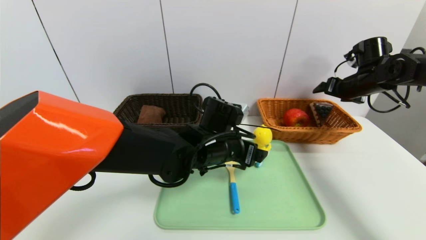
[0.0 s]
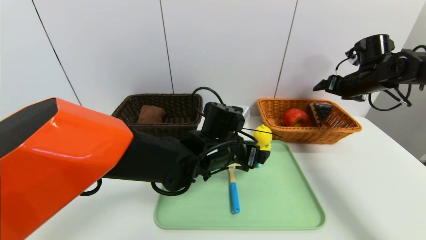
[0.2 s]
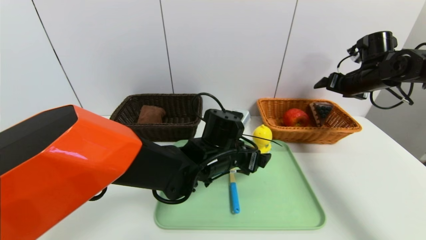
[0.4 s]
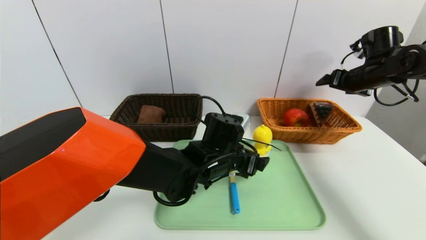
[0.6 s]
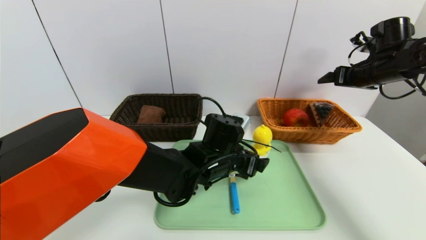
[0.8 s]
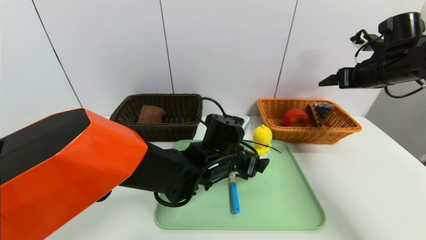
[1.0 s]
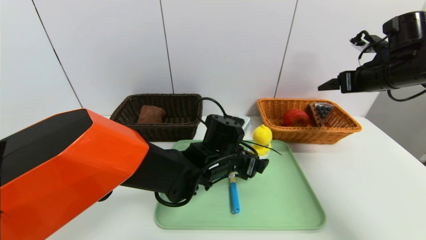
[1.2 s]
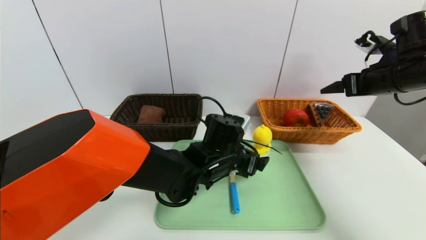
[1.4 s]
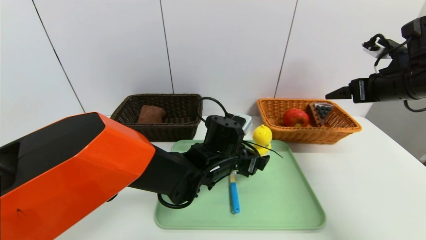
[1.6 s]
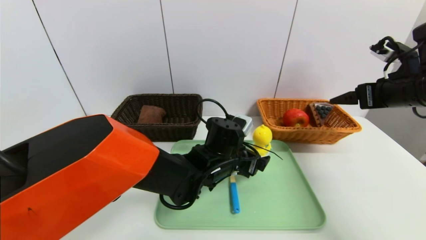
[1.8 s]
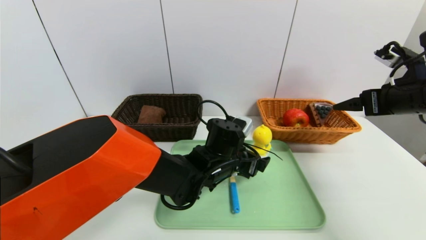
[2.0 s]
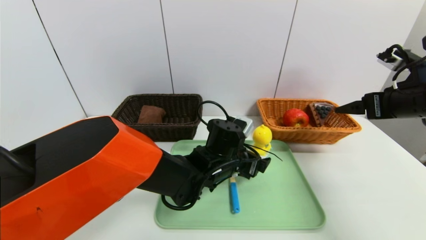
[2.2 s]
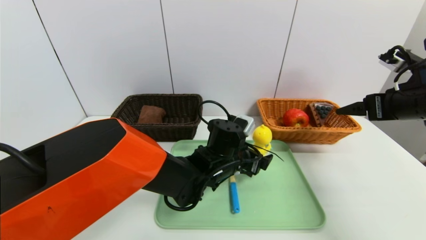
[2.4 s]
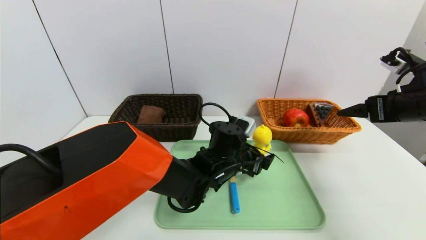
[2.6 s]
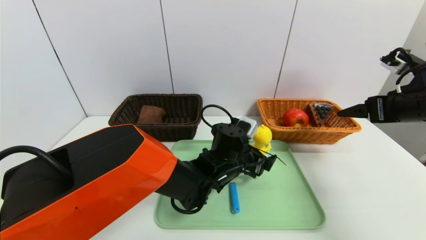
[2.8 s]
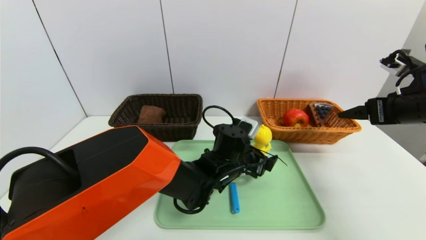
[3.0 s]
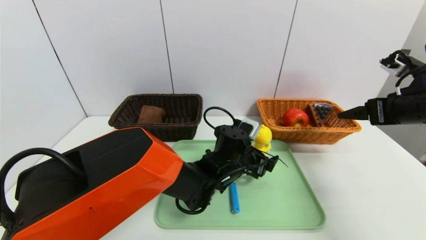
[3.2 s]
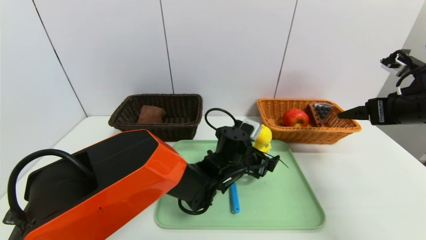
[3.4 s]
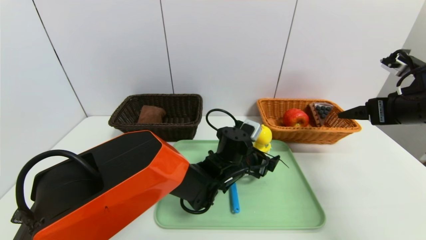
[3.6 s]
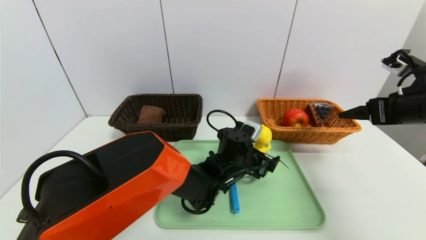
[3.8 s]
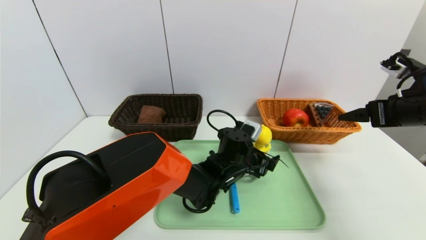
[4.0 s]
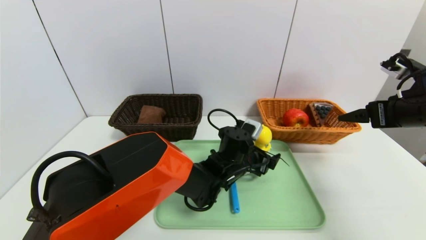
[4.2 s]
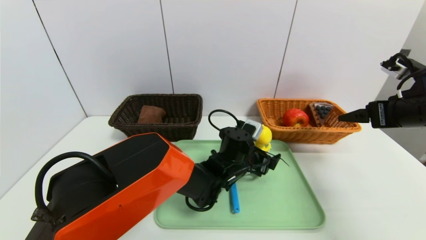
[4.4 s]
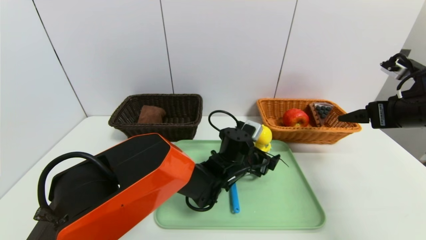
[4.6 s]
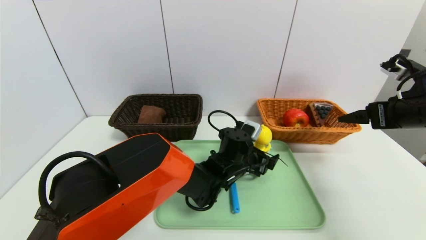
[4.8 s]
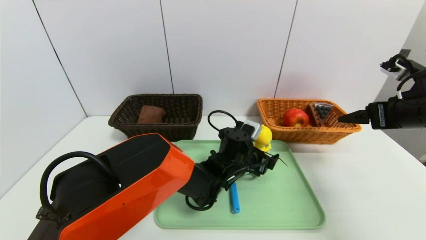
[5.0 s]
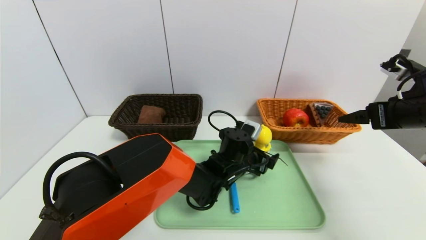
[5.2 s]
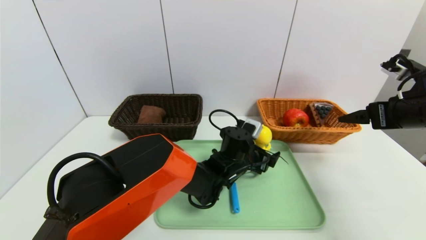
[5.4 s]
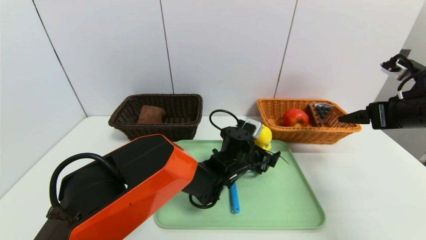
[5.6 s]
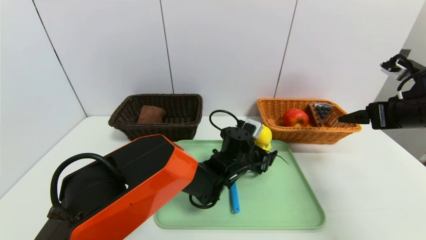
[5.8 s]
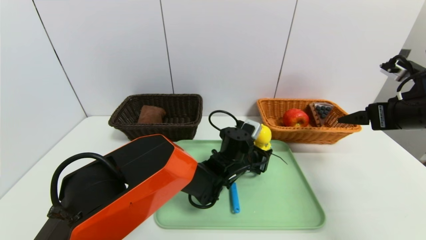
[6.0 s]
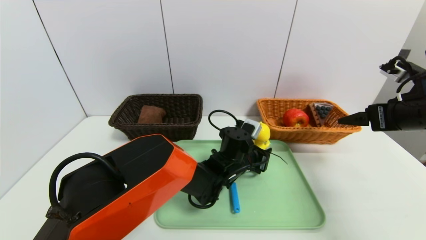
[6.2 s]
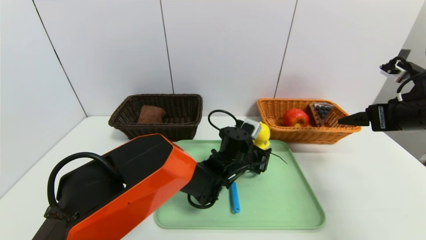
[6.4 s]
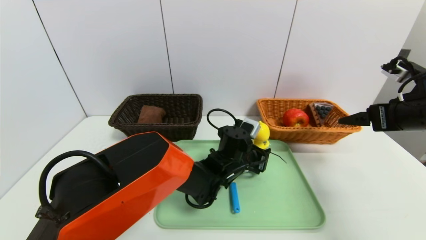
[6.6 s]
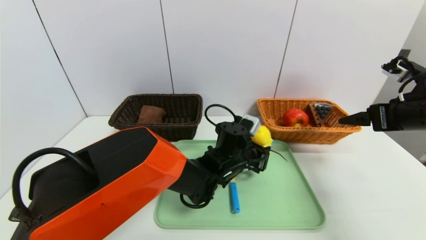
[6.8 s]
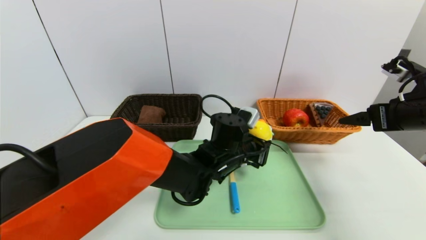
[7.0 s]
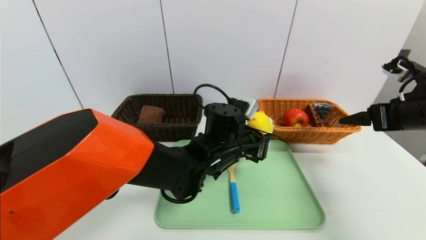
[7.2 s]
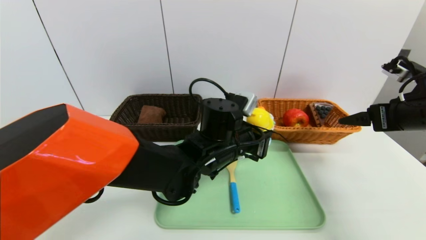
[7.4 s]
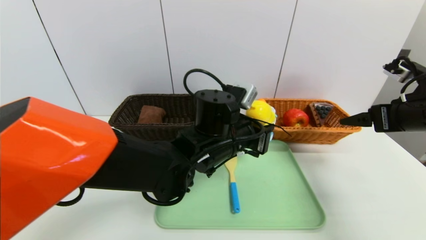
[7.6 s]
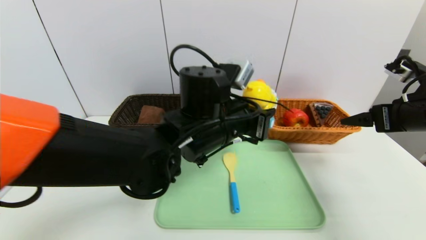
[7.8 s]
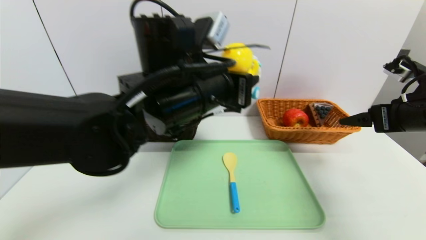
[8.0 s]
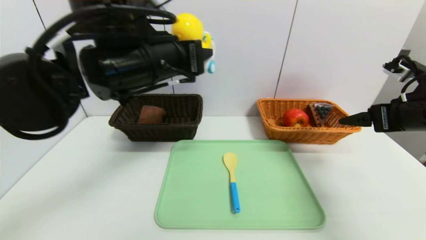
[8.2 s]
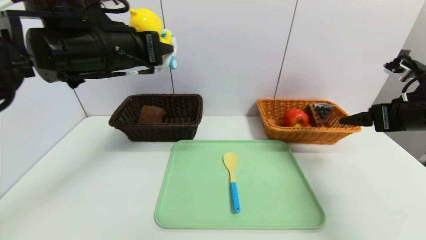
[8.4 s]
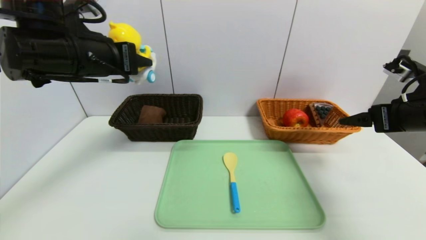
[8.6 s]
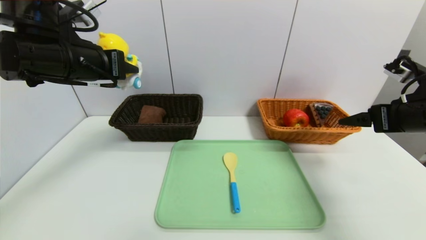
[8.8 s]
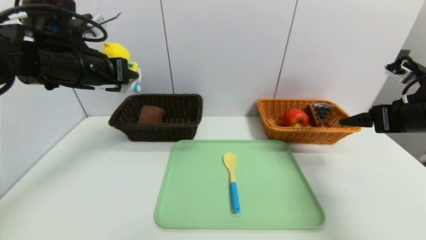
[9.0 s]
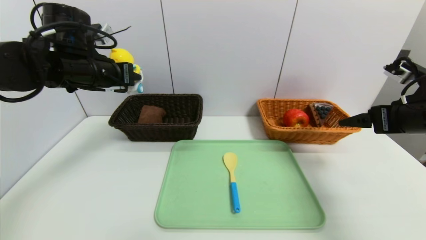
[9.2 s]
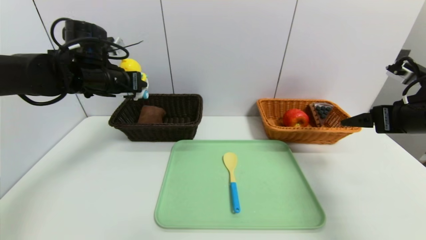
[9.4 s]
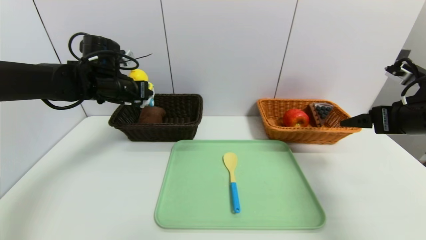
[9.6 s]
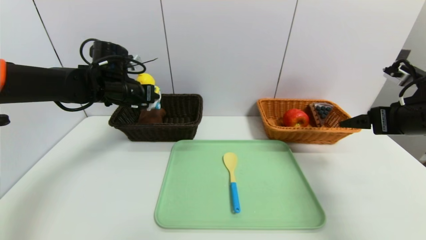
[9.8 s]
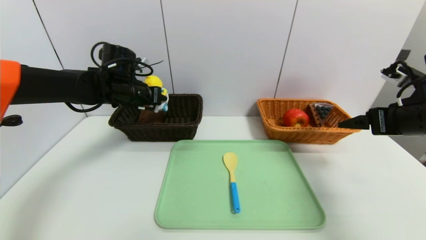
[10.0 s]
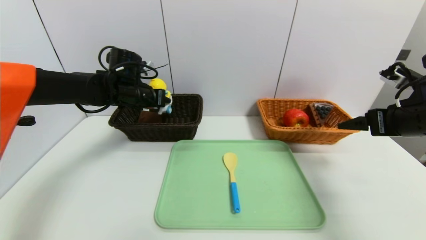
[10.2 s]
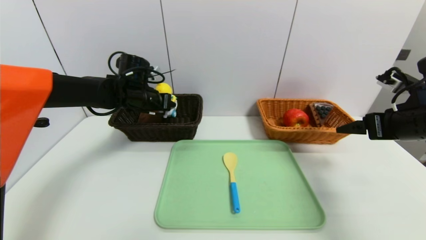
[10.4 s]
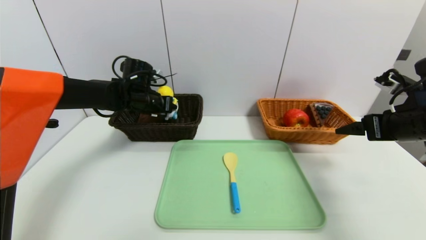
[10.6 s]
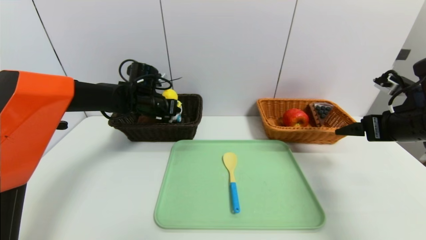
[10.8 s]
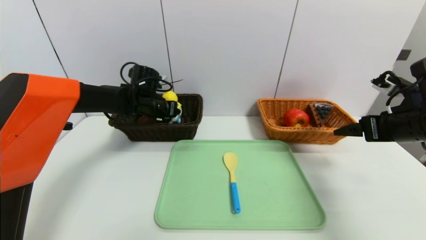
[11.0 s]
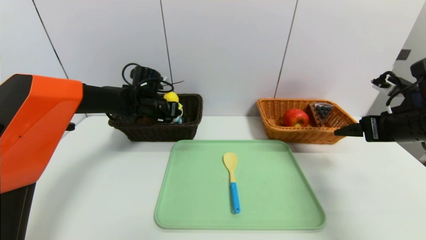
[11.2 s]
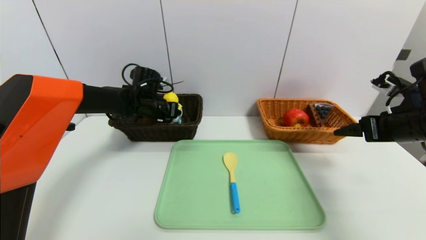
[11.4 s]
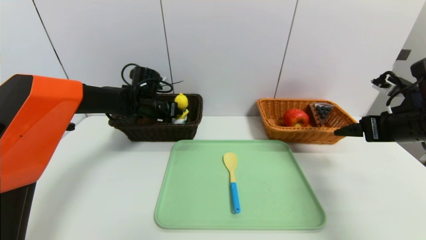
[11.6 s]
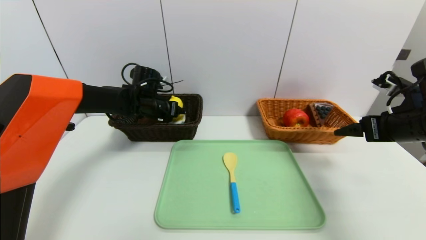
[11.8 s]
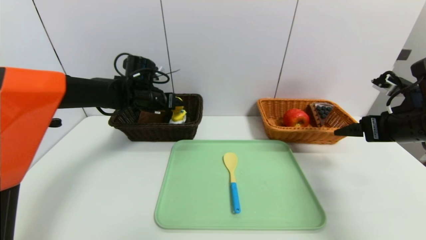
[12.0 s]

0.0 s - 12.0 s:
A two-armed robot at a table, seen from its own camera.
Task of the whole recording: place the food in the right basket with the right gripper, and place the non food items in the left basket with the left gripper.
0.0 s - 1.6 s: The right gripper is displaced backward by approximately 15 cm.
3.0 s - 4.4 s: The grippers make only small movements.
4.4 s - 6.0 s: The left gripper closes up.
6.0 s - 7.6 s: The left gripper heads upward and backward, covering roughly 15 cm.
7.6 s - 9.0 s: The left gripper goes some 25 cm to the left and upward.
9.0 s - 10.4 s: The left gripper heads forward and downward, covering some 15 cm.
10.4 s - 12.0 s: The left gripper opens.

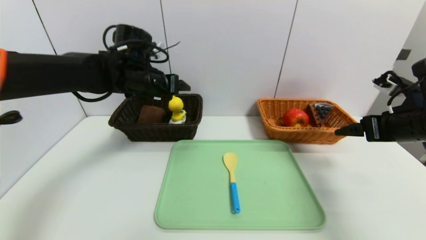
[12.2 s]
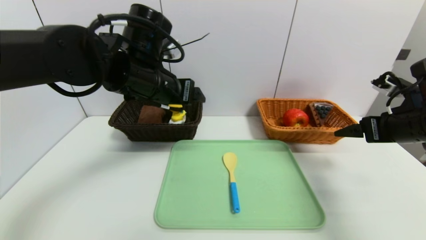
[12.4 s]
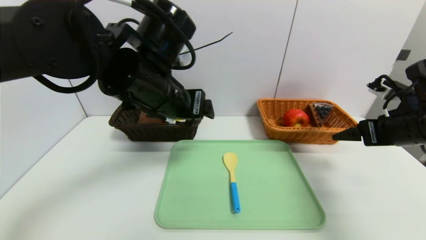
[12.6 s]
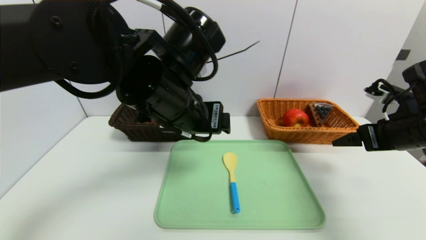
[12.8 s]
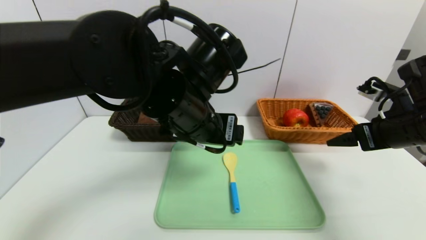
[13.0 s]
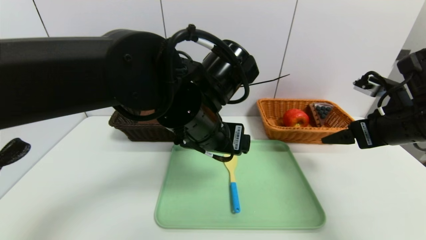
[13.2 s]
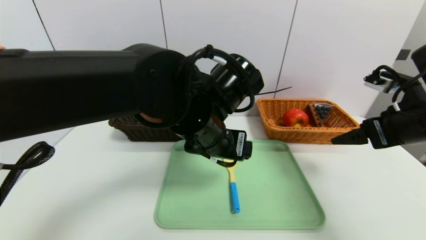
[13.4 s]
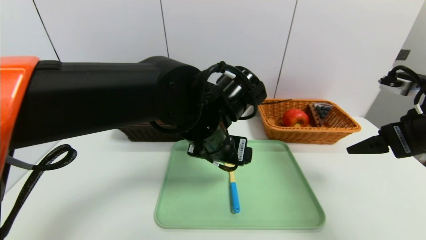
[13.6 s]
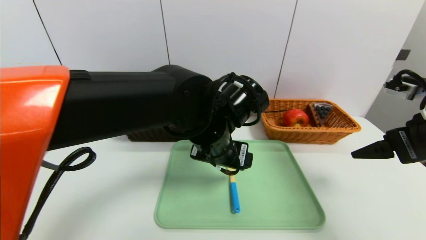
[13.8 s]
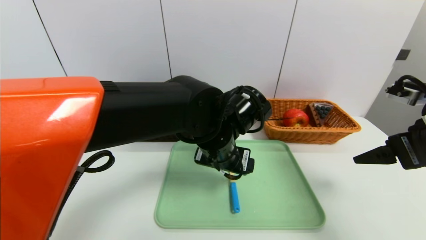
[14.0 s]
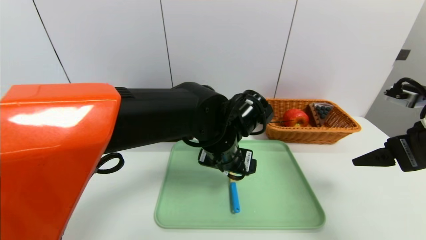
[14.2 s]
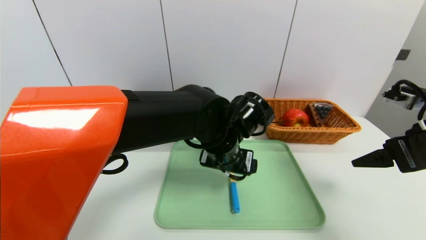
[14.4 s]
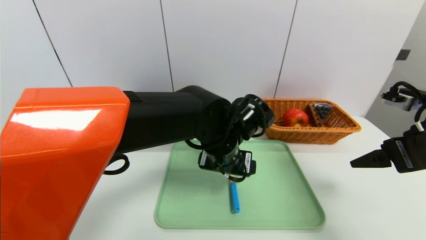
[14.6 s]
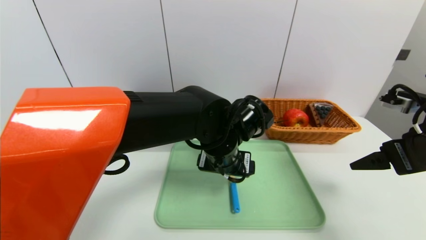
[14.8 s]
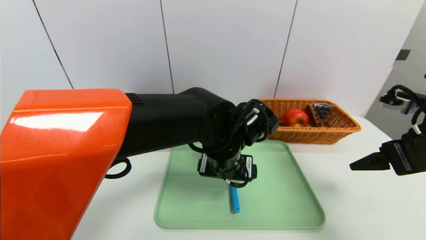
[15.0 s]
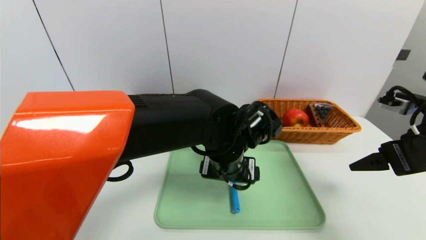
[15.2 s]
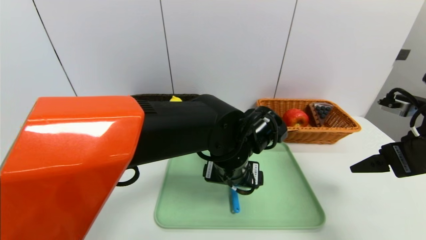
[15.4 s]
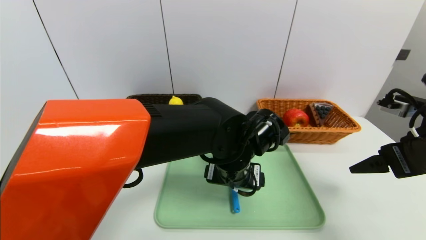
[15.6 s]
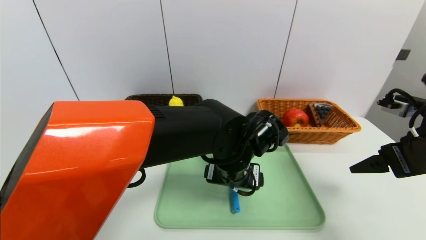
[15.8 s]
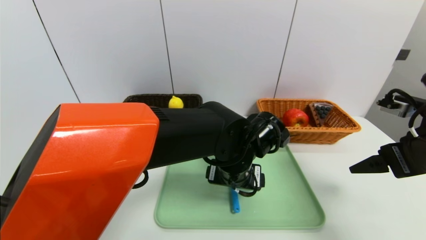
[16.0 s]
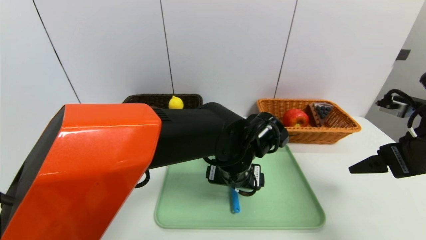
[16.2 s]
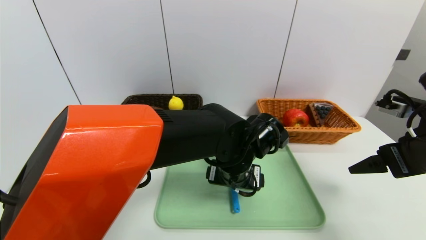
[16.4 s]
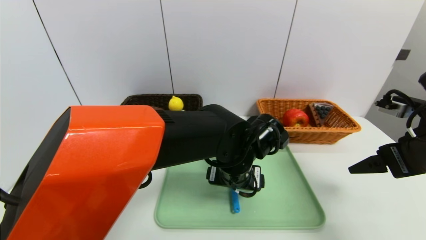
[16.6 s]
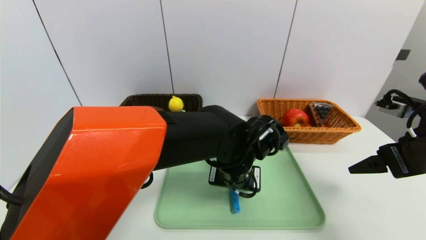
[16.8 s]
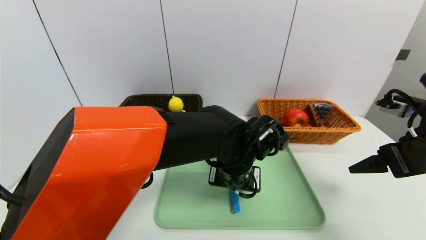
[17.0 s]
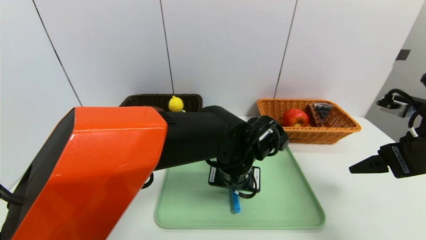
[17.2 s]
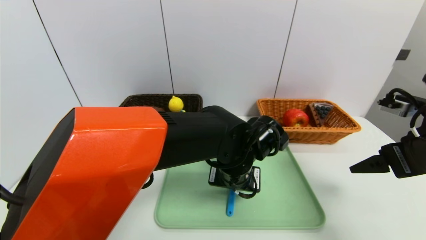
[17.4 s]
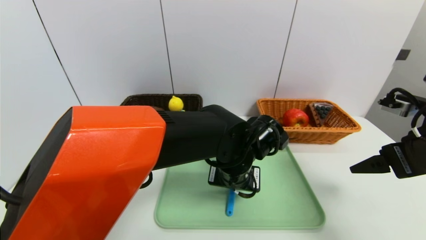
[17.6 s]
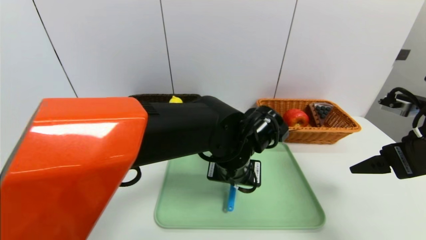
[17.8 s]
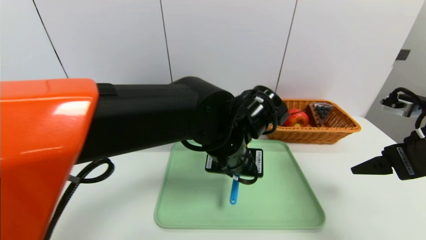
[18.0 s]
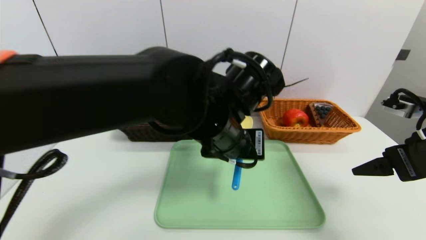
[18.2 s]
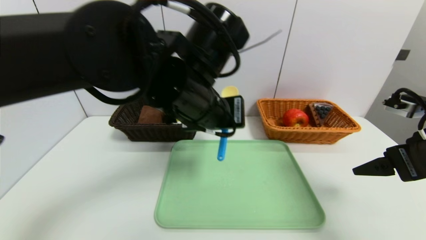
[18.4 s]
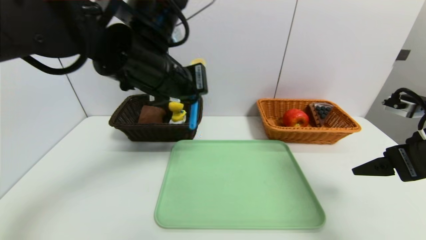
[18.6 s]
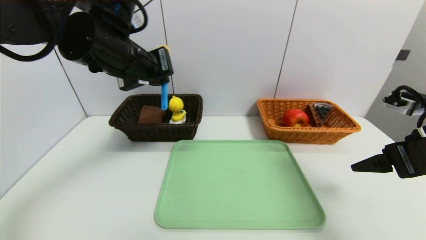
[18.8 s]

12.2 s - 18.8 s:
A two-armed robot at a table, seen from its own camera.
Task of the whole recording: place the food in the right basket with the right gripper, and place the non food items in the left basket with the left gripper.
12.2 s - 13.8 s: The left gripper shifts roughly 20 cm to the right and backward. Meanwhile the right gripper travels backward by roughly 5 cm.
13.8 s - 15.4 s: The left gripper changes place by some 5 cm.
15.4 s - 17.2 s: The left gripper closes up.
17.2 s - 18.8 s: The left gripper goes approximately 25 cm to the left and upward.
